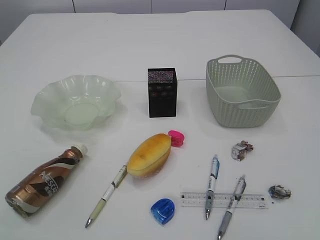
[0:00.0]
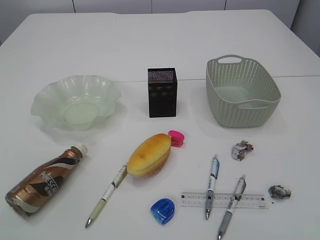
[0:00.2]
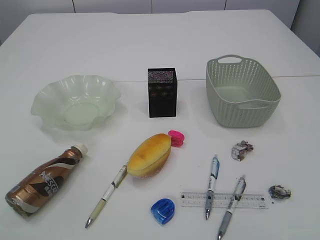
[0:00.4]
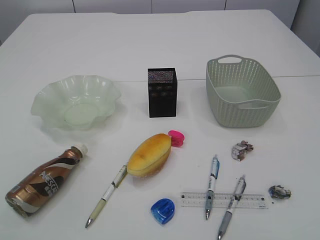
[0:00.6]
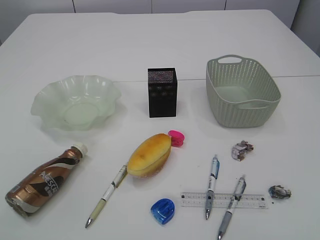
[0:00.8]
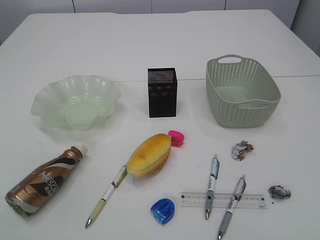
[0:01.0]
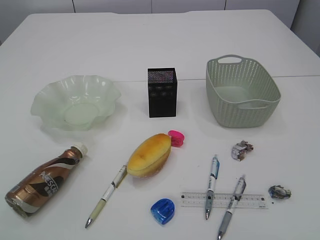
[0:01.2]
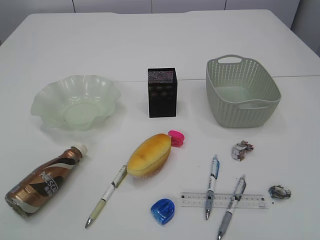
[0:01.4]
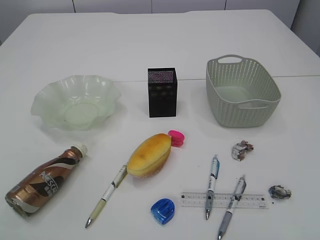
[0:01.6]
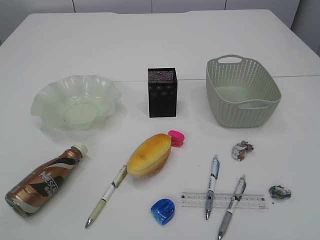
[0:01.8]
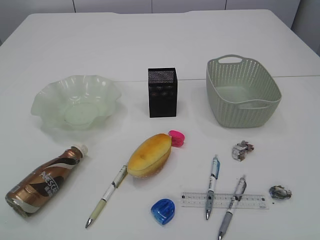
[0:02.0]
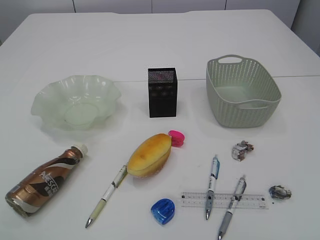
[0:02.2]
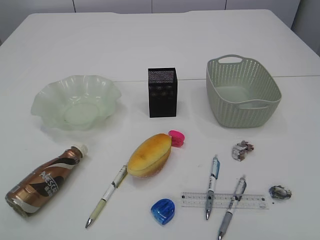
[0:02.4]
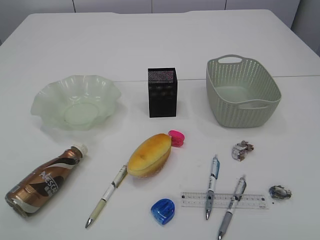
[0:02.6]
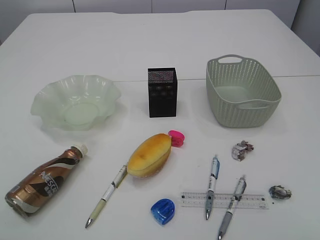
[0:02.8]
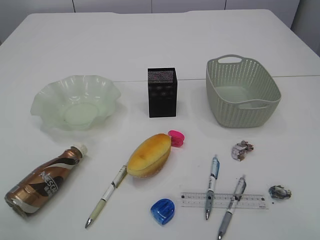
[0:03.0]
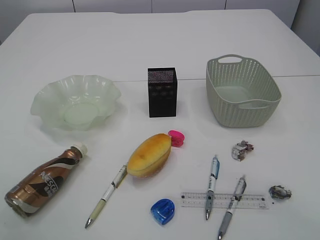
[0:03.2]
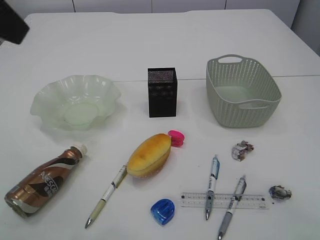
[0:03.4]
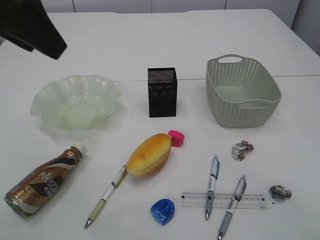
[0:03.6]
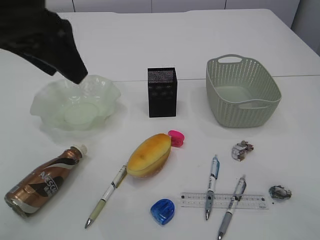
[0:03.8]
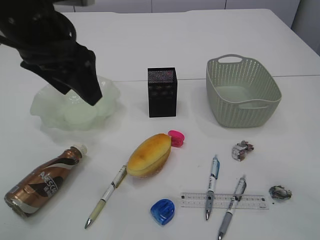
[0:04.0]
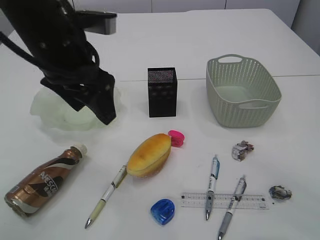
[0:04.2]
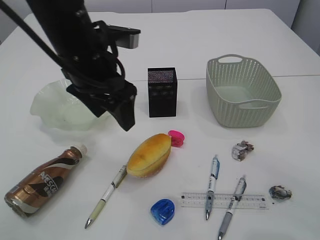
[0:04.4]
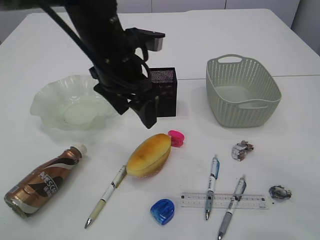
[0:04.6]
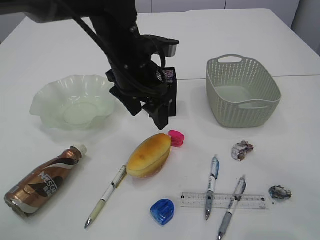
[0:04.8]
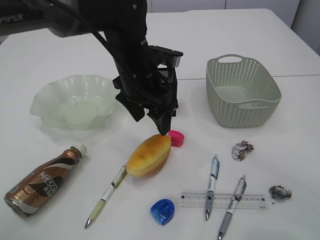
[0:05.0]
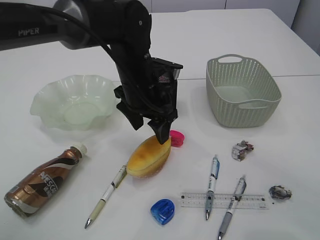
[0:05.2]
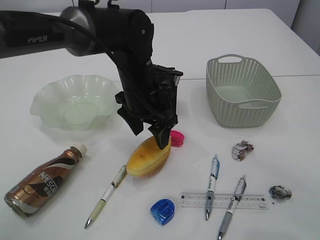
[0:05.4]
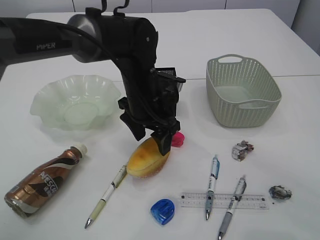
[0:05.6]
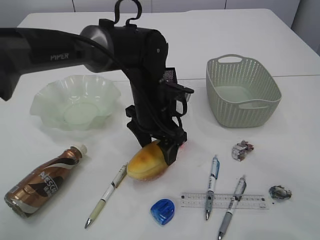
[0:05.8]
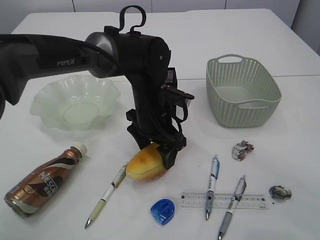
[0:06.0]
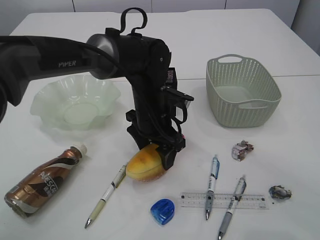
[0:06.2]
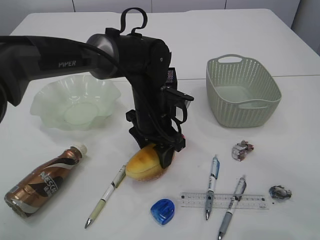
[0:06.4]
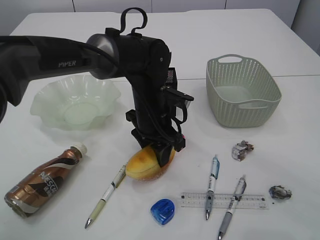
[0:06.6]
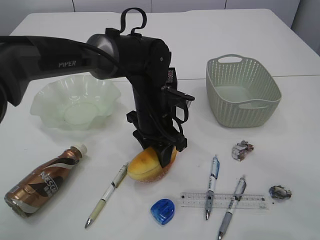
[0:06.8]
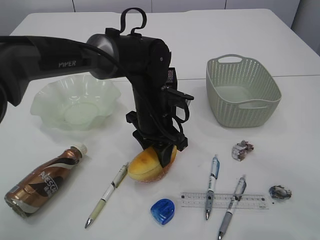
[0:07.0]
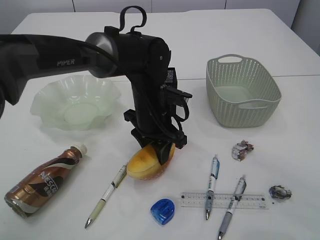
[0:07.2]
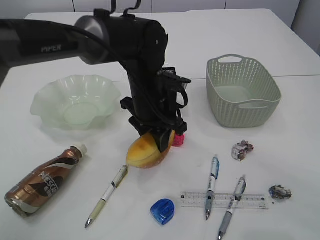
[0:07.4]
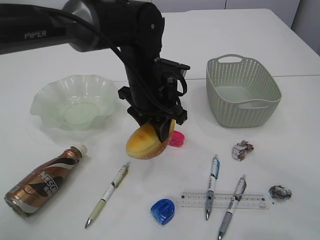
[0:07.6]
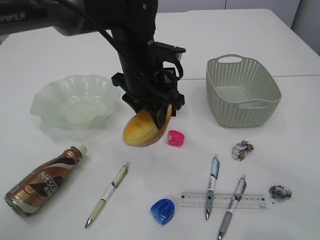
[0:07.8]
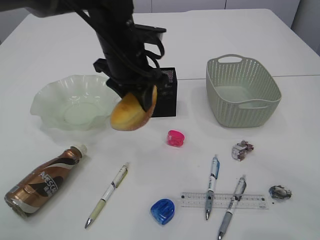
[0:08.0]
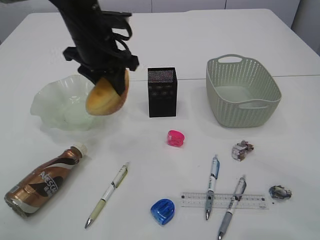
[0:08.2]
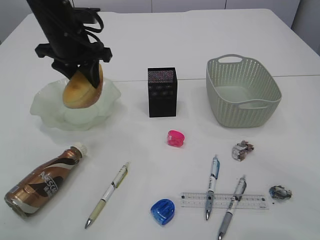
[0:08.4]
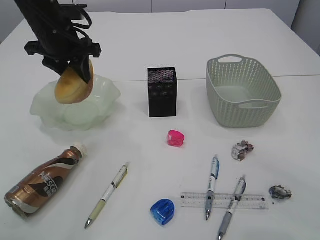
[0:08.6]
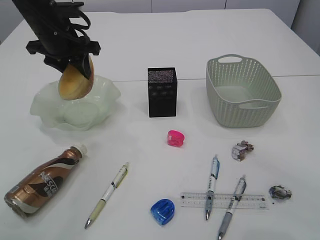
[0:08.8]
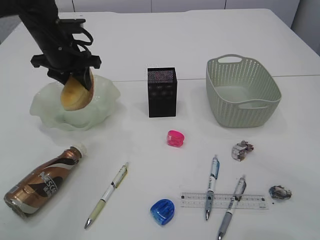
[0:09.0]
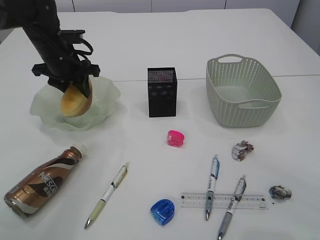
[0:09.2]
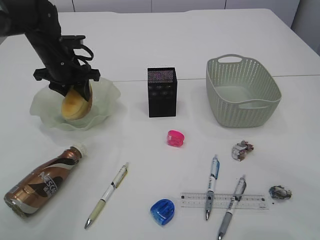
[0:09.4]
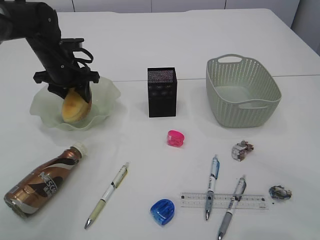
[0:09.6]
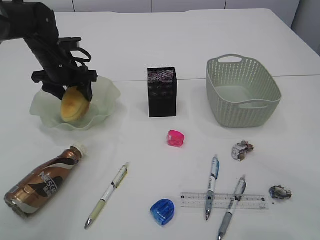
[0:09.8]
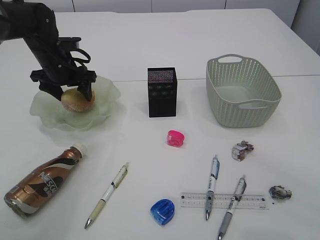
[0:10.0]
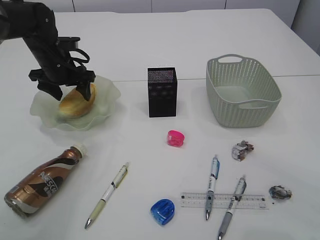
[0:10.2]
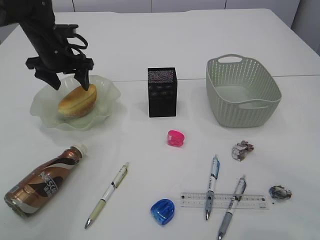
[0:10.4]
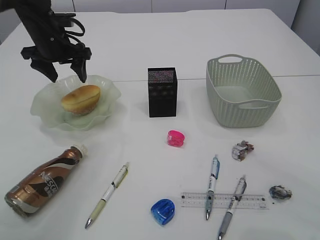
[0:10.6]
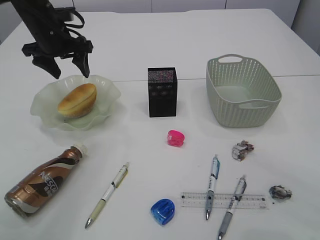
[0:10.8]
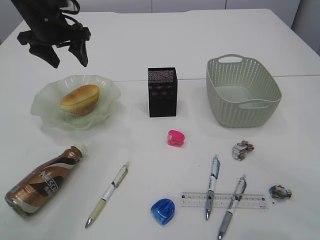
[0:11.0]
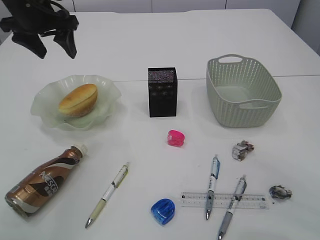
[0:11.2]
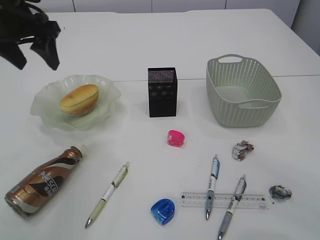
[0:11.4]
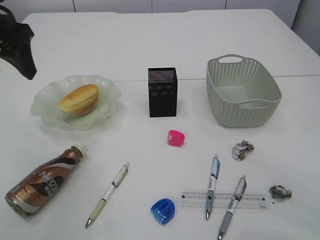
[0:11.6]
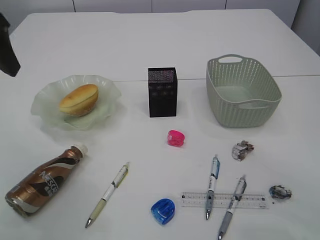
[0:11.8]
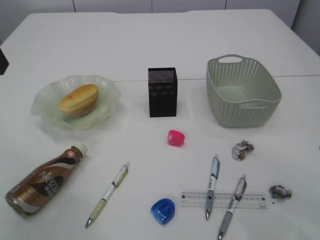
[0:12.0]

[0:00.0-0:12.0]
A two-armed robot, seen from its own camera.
Step, 0:07.8 to 0:10.8: place the bread in the plate.
0:03.0 to 0:04.4: The left gripper travels forward, to the right and downward by some 30 cm, while the right gripper goes roughly 15 cm forward and downward.
0:04.4 to 0:06.0: The left gripper goes some 15 cm downward and to the right.
0:06.0 to 0:07.6: The left gripper moves upward, roughly 5 cm, and closes its fingers.
0:07.6 to 0:09.0: The left gripper heads to the left and forward, covering about 20 cm.
0:09.0 to 0:10.4: The left gripper opens.
0:10.4 to 0:12.0: The left gripper is displaced backward and upward by about 30 cm.

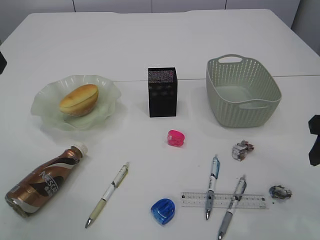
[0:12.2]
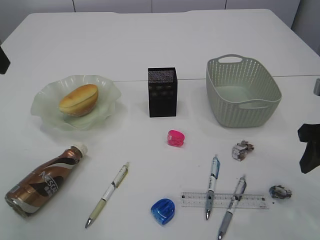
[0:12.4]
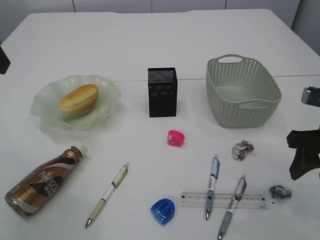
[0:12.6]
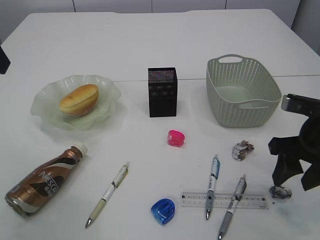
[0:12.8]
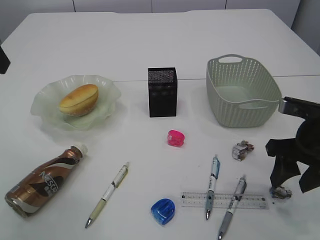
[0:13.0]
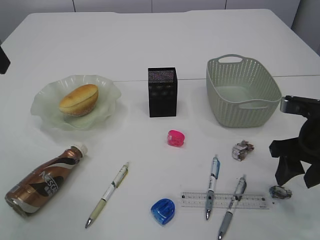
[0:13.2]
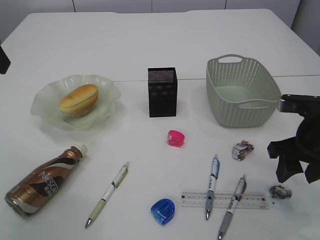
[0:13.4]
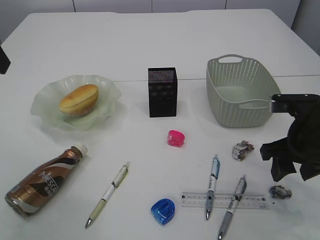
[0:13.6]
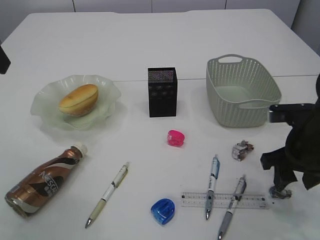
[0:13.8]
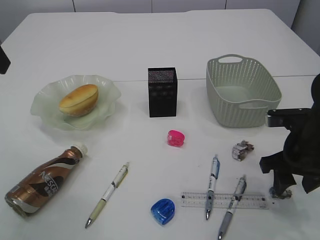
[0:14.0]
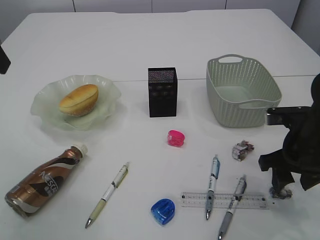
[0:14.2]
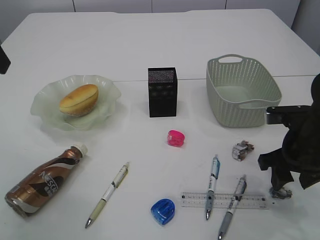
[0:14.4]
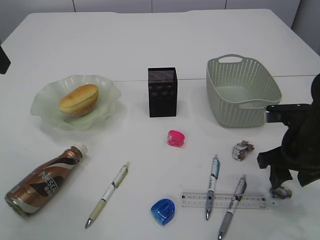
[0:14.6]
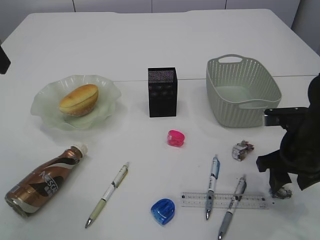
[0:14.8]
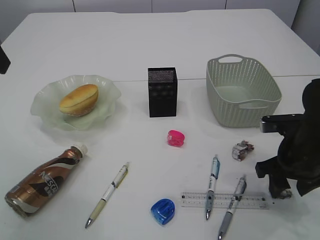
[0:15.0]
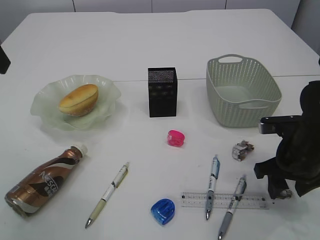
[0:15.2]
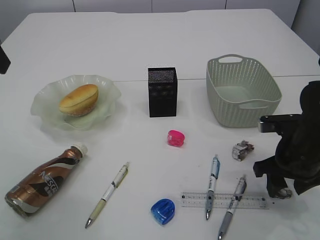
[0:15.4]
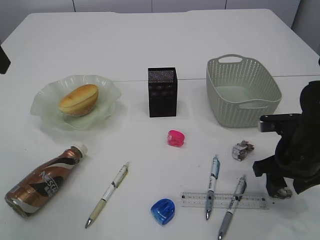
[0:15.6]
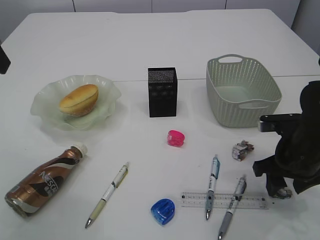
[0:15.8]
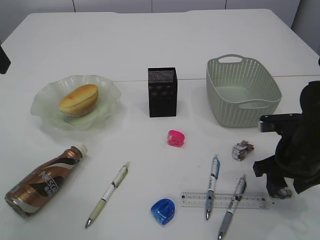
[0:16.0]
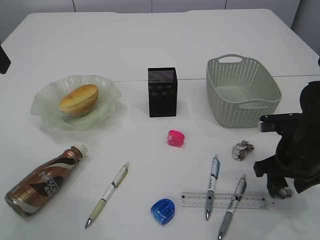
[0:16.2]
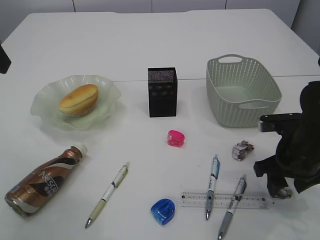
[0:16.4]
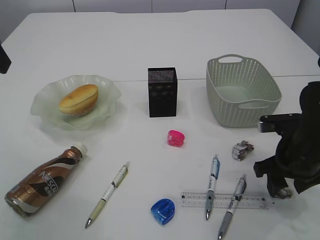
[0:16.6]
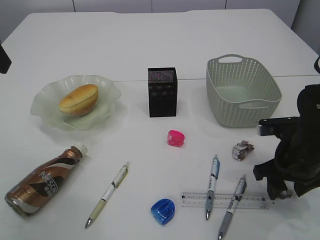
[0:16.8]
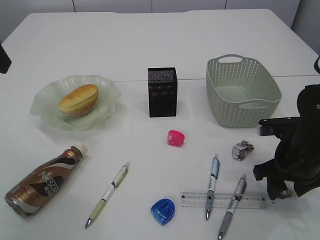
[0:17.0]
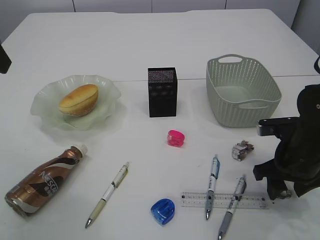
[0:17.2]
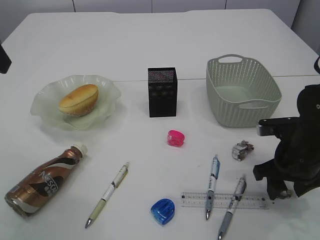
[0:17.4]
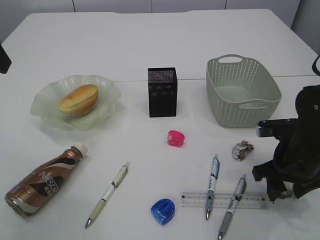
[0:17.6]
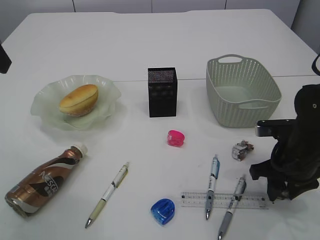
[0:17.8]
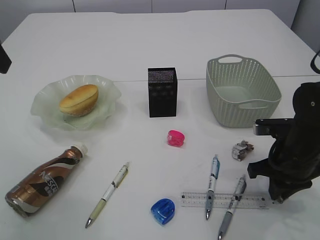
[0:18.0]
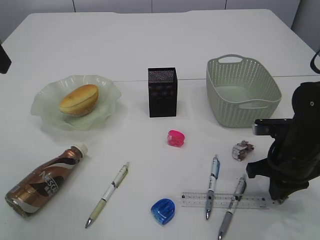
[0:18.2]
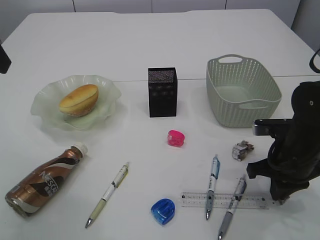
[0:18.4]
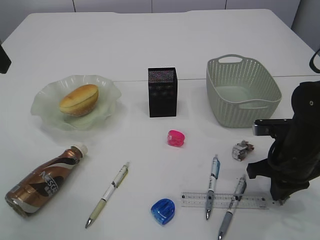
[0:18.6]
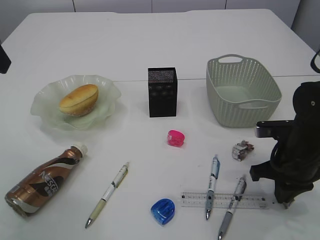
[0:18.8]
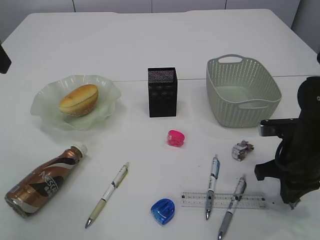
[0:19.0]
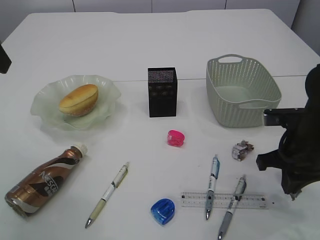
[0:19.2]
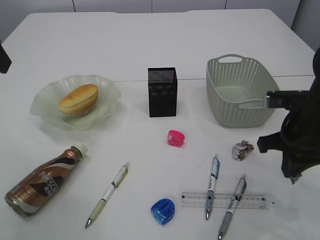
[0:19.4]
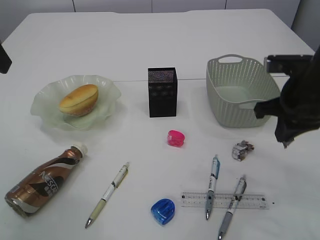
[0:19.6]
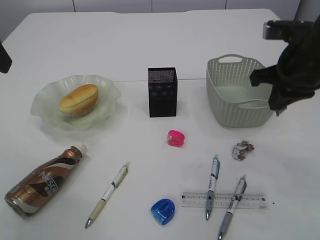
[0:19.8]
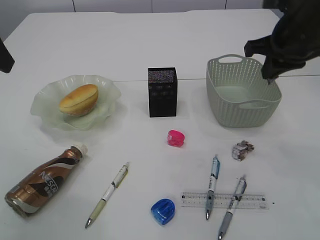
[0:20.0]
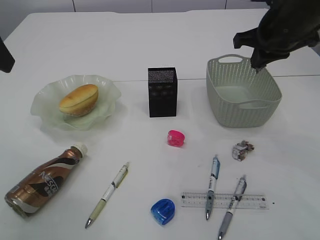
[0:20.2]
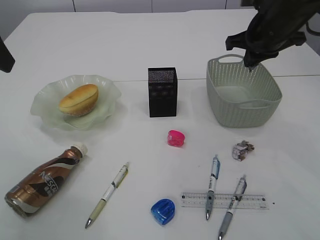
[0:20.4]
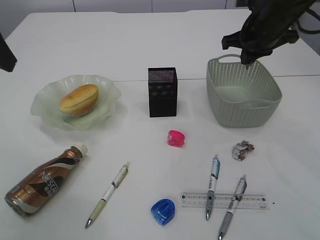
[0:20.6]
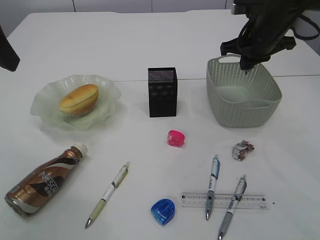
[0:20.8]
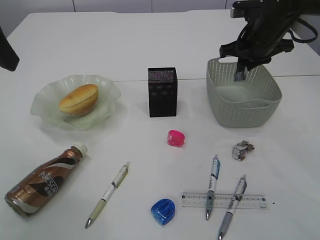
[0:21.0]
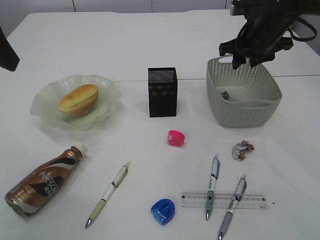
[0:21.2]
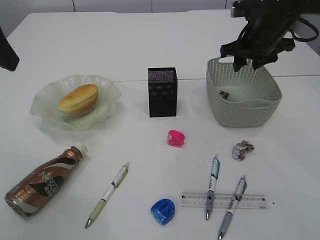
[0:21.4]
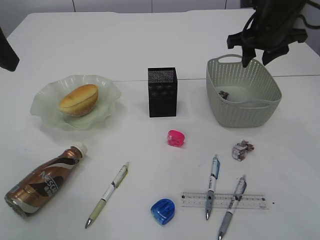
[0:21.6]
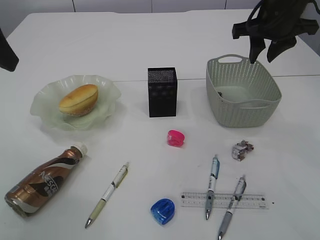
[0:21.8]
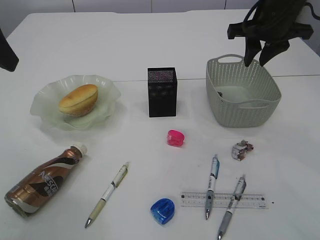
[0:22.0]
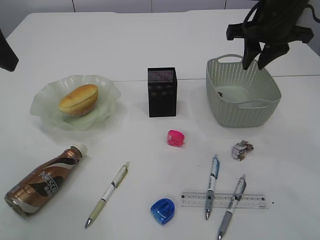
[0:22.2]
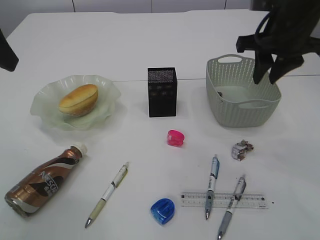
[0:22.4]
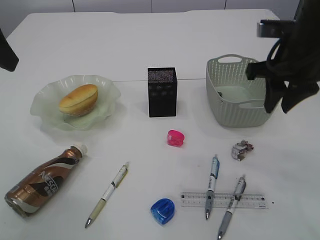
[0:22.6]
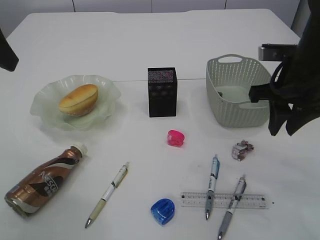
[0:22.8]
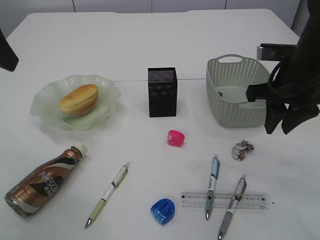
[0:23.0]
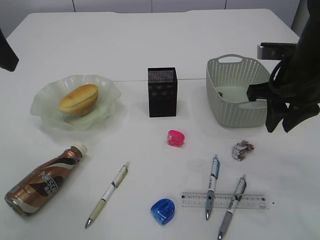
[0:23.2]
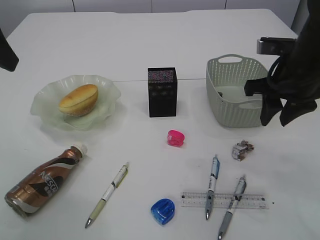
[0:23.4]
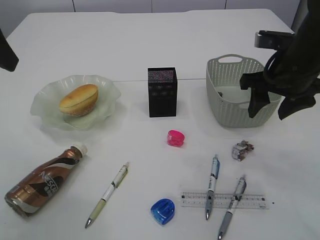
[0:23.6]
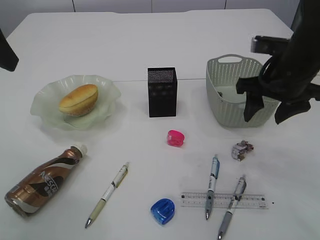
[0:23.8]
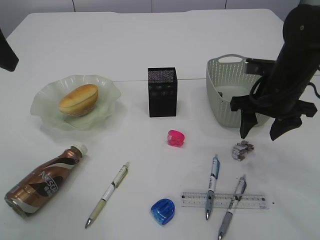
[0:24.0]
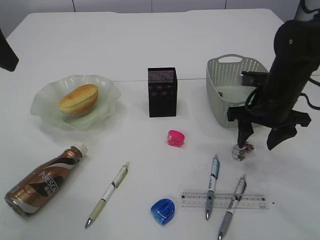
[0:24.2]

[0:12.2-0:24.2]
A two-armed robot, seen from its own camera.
Step, 0:12.2 to 0:19.2: Pick up the waste paper.
Step, 0:19.4 to 0:22.2: Place the waste paper in the basket.
0:12.2 to 0:13.8: The right gripper shifts some 10 cm downward.
0:13.8 to 0:15.2: The grippers make only small movements.
0:15.2 to 0:16.6: Neither gripper changes place.
0:16.6 to 0:18.2: The right gripper closes.
0:18.2 to 0:19.8: The right gripper travels upward by approximately 15 cm.
0:19.8 to 0:21.2: The right gripper is displaced forward by roughly 15 cm, and opens its fingers.
0:21.2 to 0:22.6: The right gripper moves backward, some 10 cm.
0:22.6 to 0:24.2: The right gripper shifts roughly 10 cm downward, and opens its fingers.
